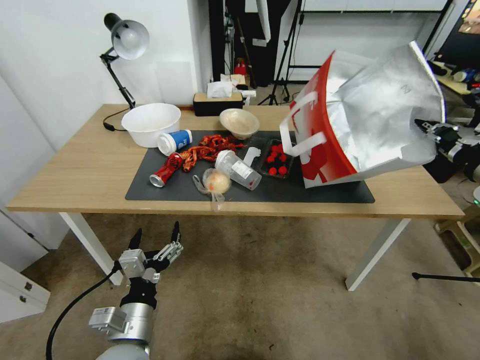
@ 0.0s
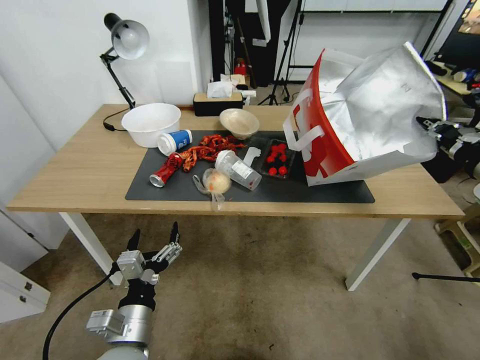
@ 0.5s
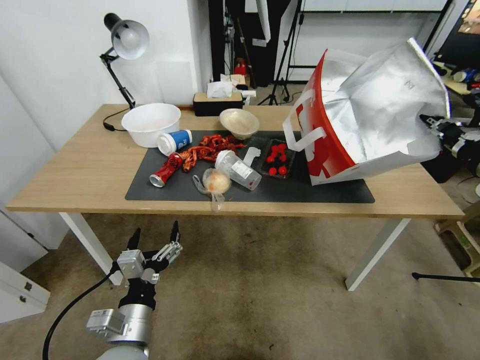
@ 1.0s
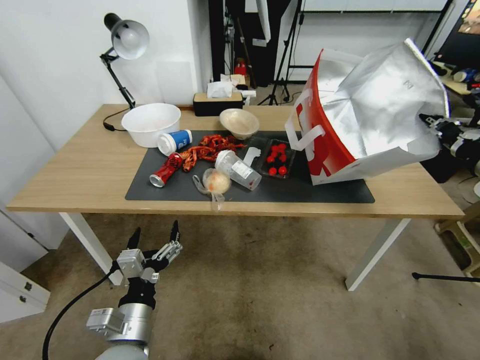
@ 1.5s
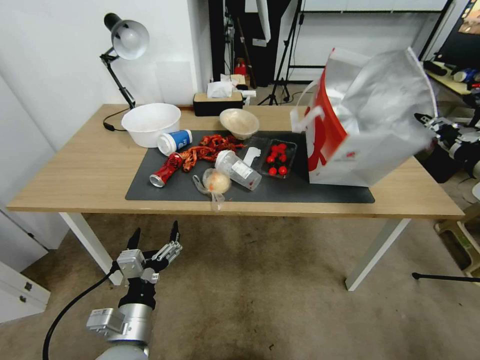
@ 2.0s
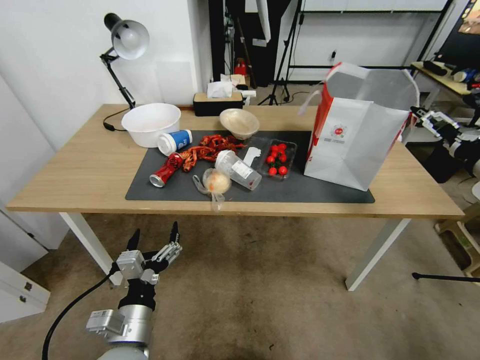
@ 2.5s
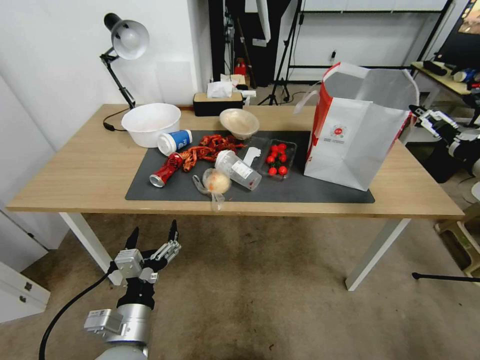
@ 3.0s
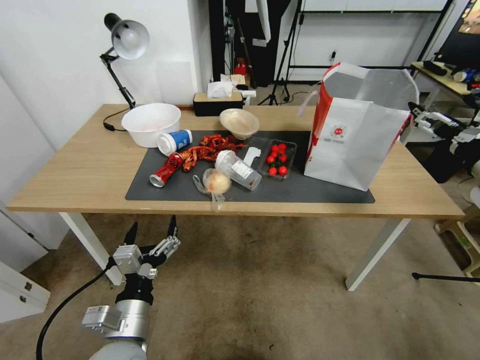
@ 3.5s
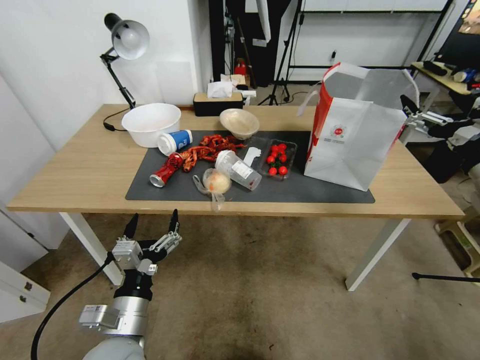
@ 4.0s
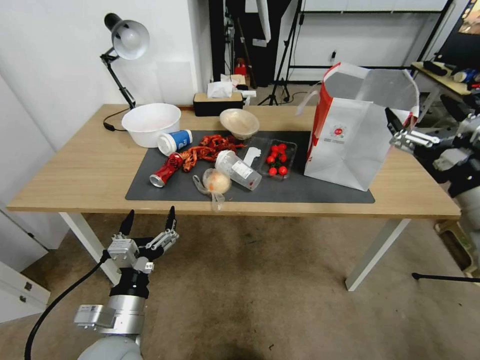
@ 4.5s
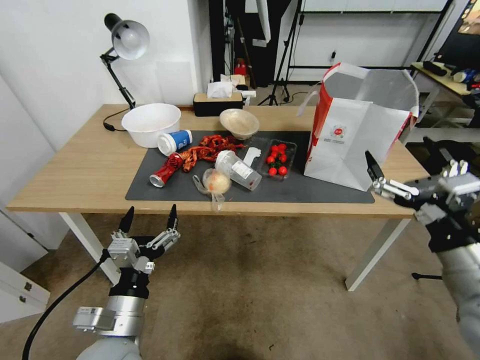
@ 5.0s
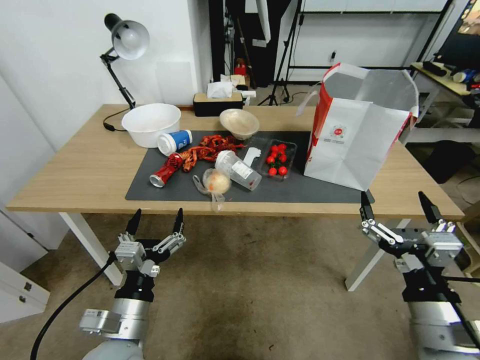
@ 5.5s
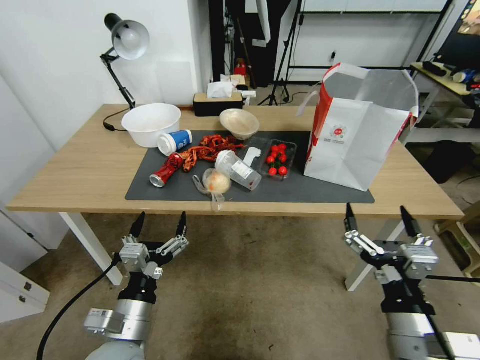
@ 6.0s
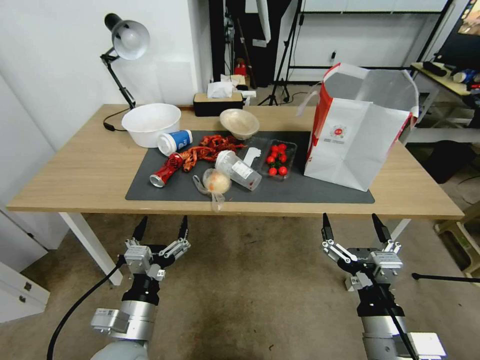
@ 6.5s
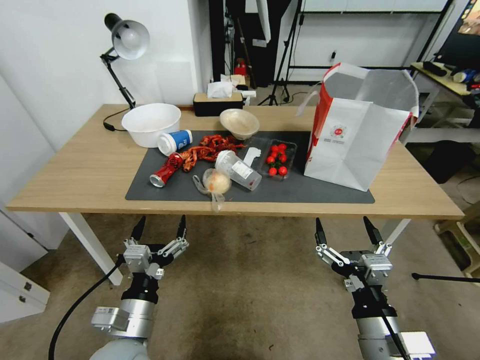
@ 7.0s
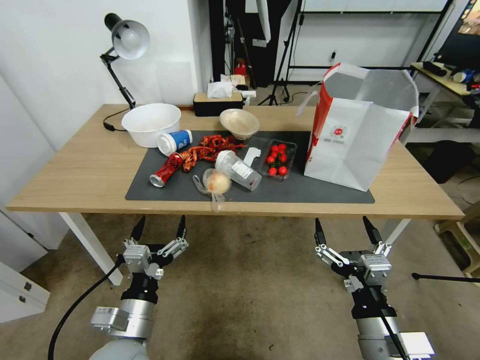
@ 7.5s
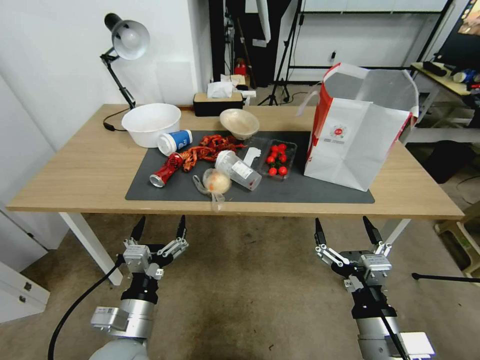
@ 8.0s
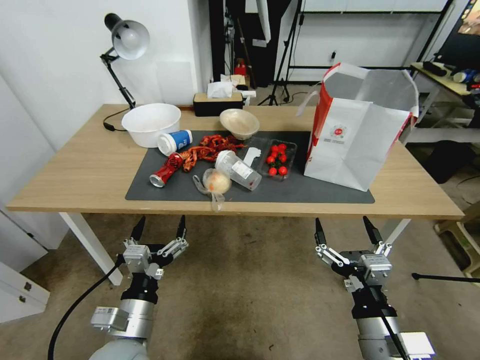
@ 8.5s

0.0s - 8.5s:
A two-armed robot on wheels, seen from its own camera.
Task of the whole recording: Pick up the food delivery bag from the floor and place it on the table.
0.0s - 2.0s: The grippers move only a little.
2.0s - 4.0s: The right gripper opens its fingers.
4.0s - 6.5s: The right gripper shifts roughly 30 cm downward, to the left and backward.
6.5s - 8.5s: Both grippers stay put.

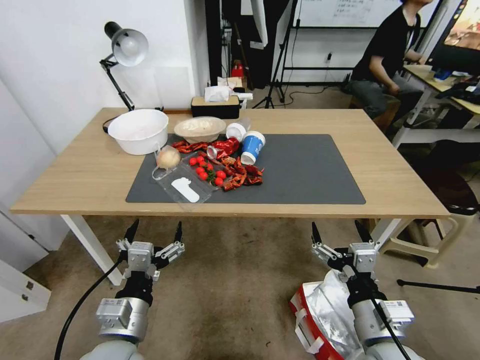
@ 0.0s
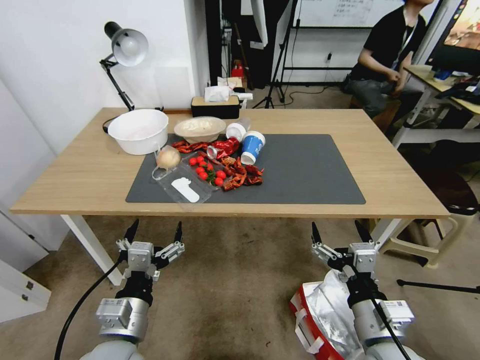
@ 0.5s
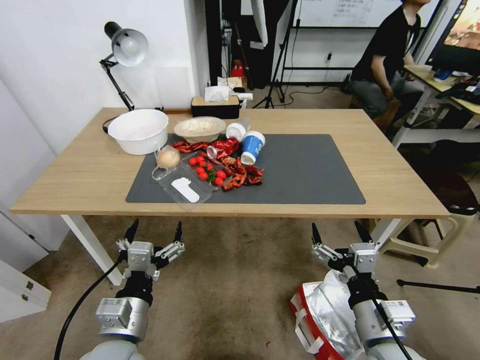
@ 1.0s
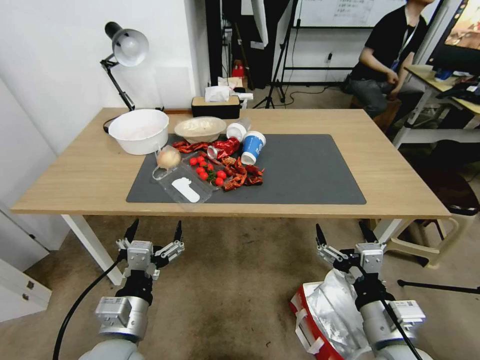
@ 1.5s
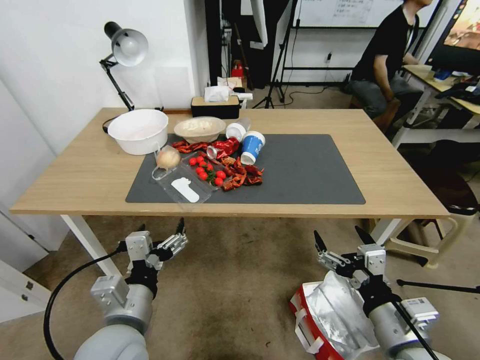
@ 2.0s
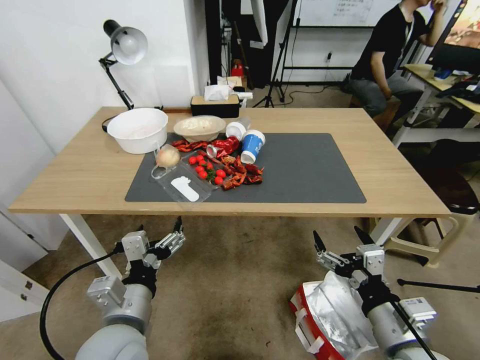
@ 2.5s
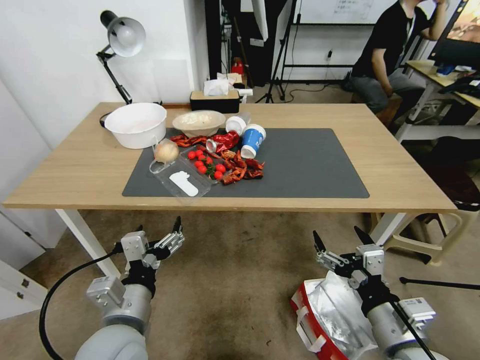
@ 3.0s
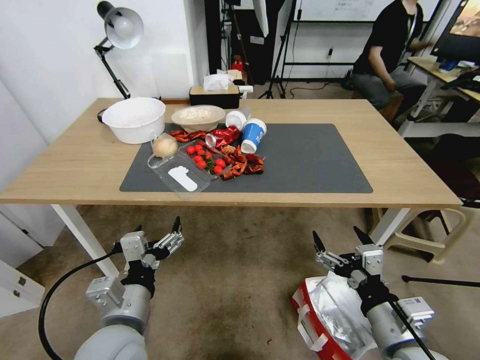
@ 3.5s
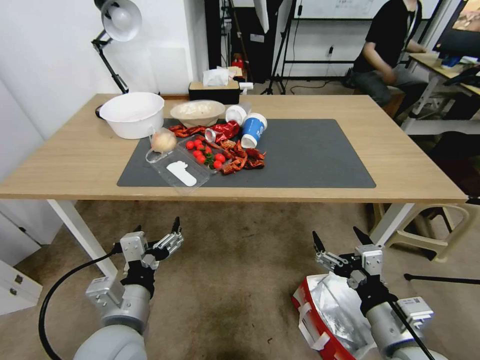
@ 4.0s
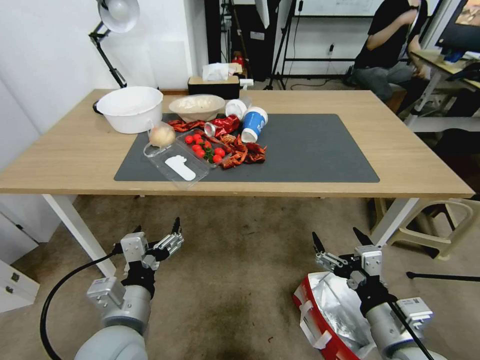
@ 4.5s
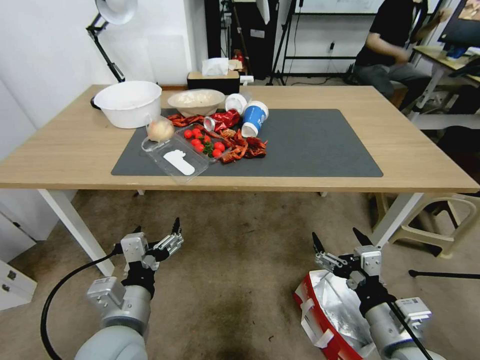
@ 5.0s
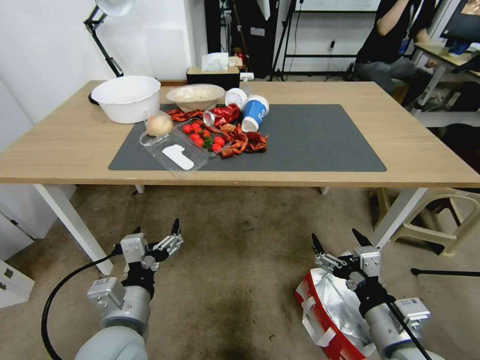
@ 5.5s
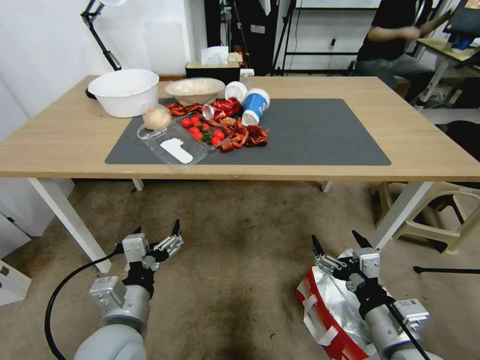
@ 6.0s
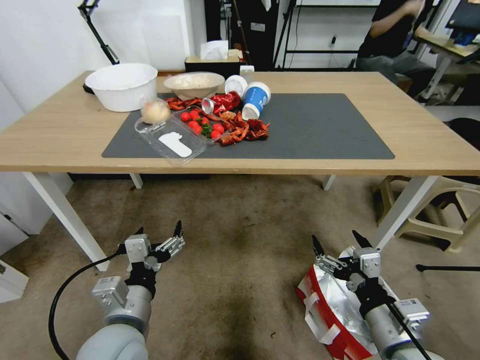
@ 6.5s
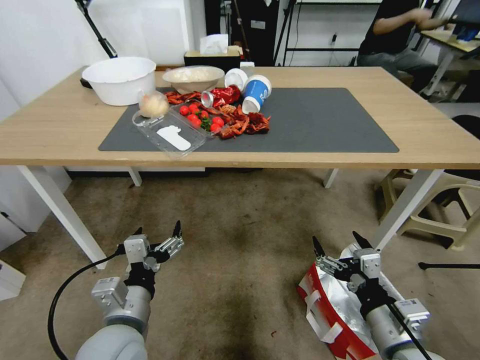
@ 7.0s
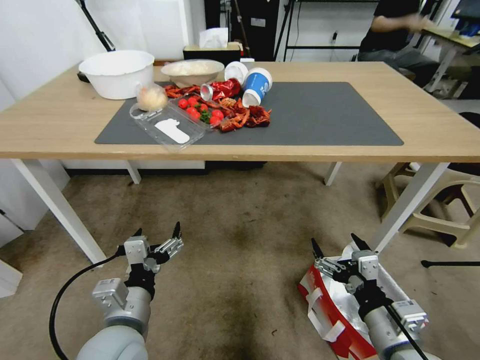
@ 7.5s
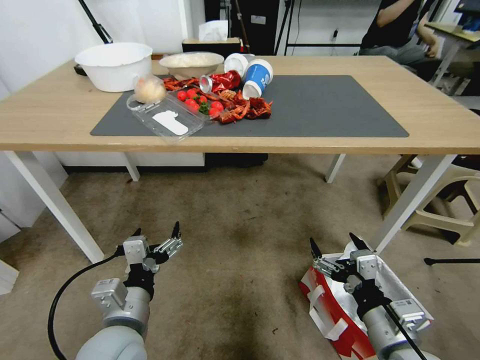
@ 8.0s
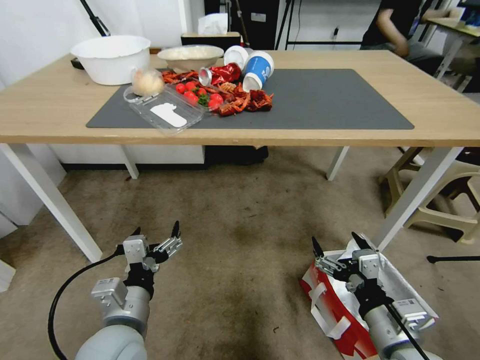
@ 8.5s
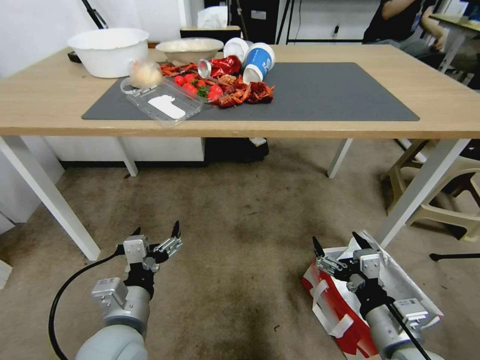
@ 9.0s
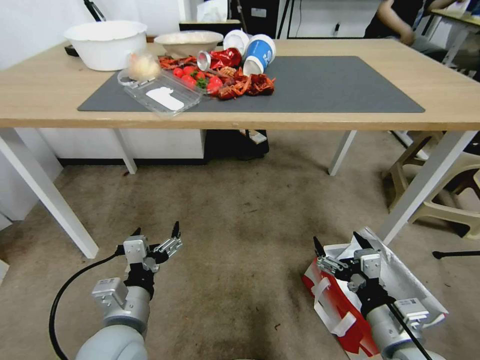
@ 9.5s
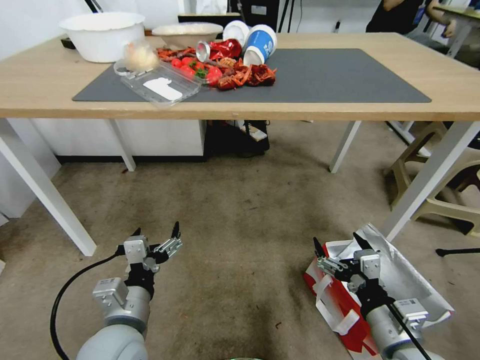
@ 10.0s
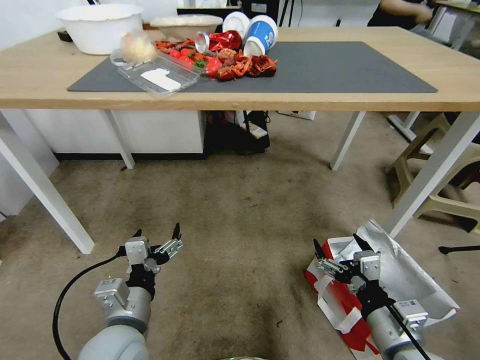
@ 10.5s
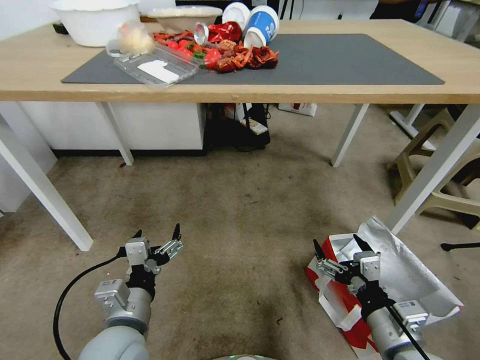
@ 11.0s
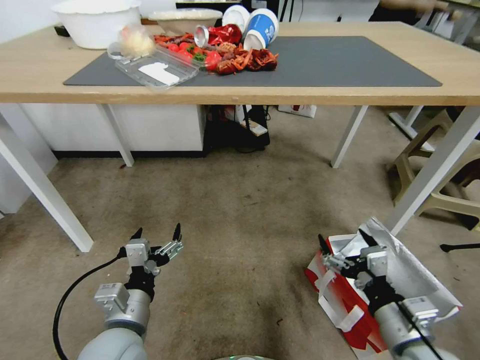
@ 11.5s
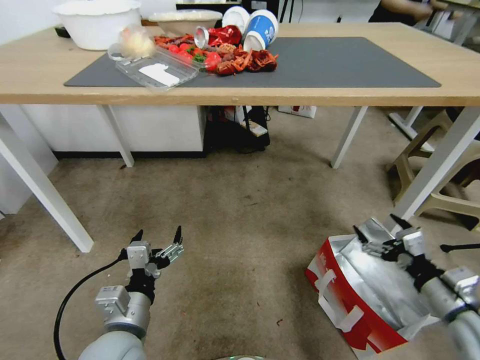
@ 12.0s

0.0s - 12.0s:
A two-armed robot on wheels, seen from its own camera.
Task of the whole recording: Pick up the food delivery bag from the floor and place it on the table.
10.0s - 12.0s: The right gripper heads to the right and forward, covering roughly 15 cm.

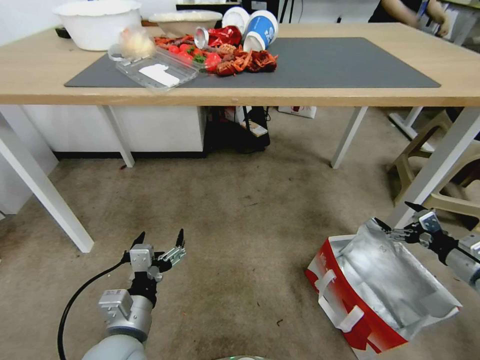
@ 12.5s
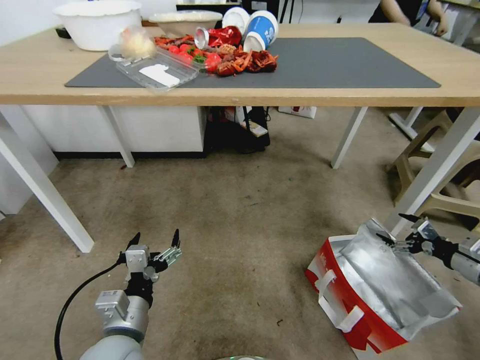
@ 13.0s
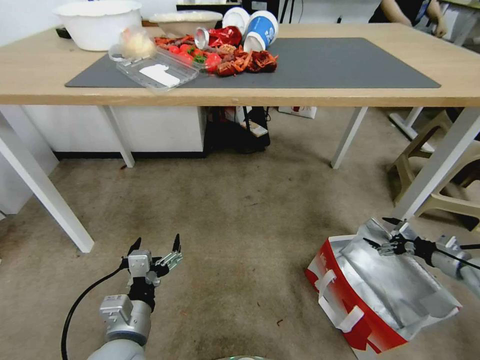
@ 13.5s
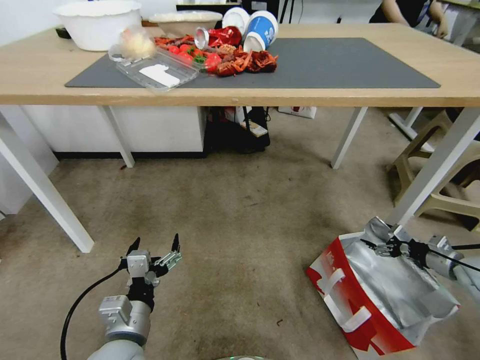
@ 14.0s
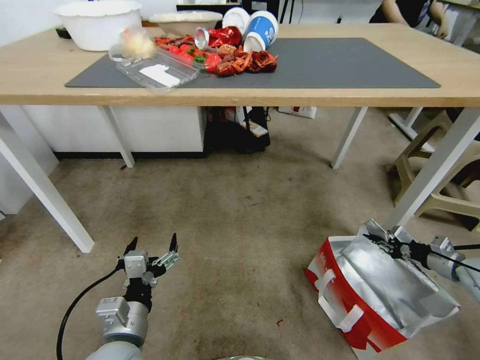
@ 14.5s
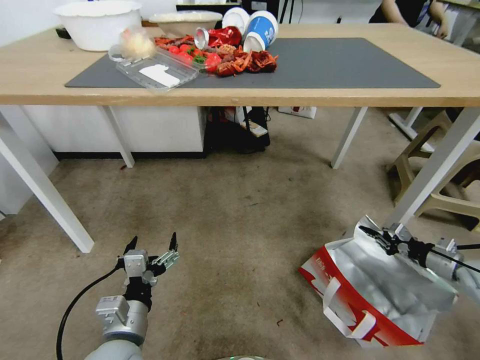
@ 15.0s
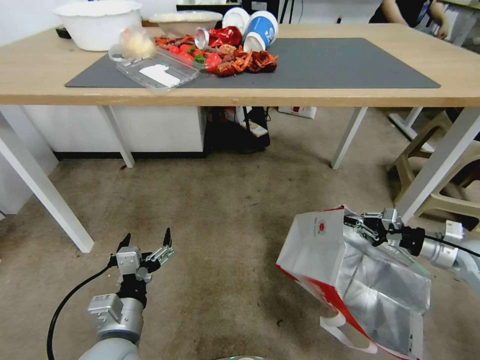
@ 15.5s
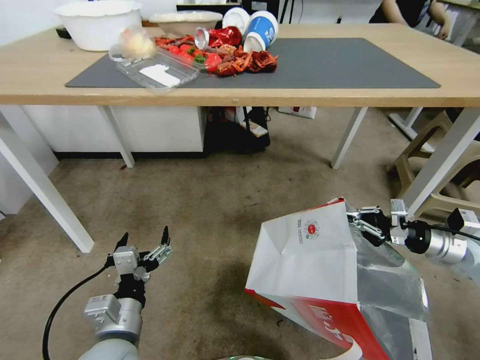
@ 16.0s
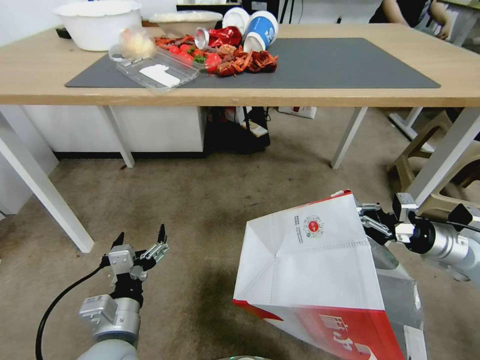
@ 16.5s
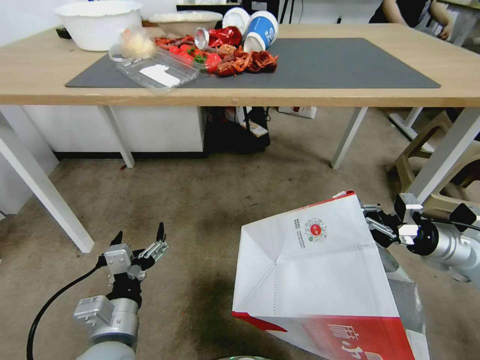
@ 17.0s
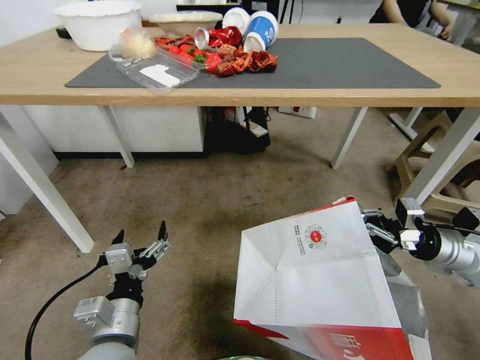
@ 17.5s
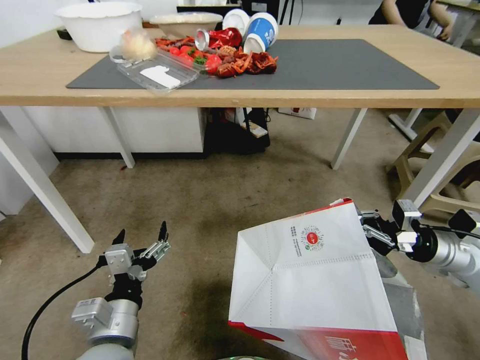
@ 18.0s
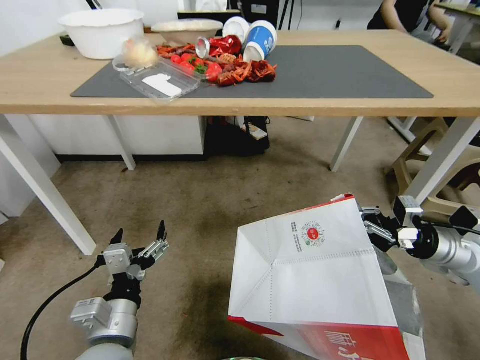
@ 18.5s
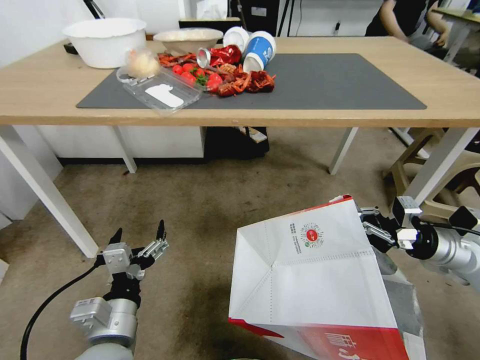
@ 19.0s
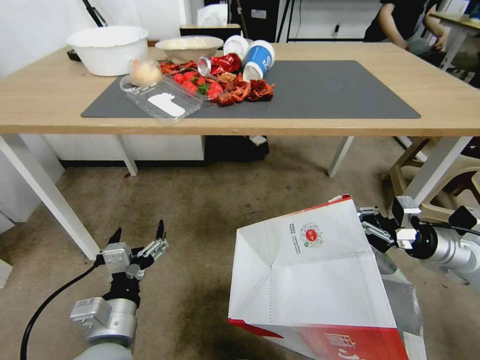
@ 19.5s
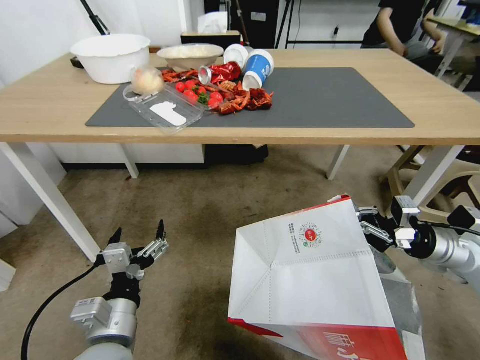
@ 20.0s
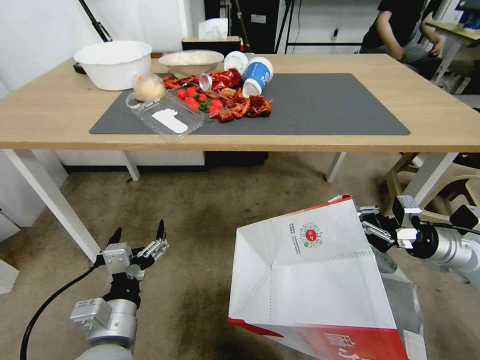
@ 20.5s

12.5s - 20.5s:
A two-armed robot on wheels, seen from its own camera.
Task of the whole recording: Pick up the food delivery bag from the floor and place it on the table.
12.5s - 14.5s: The right gripper moves downward, forward and to the right, approximately 10 cm, and closes up.
14.5s - 16.5s: The right gripper is displaced upward and to the left by approximately 15 cm.
